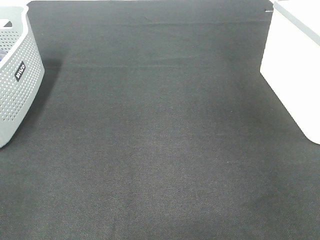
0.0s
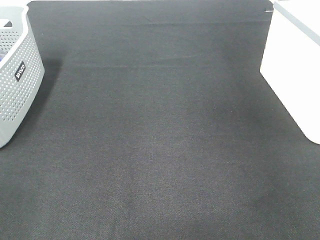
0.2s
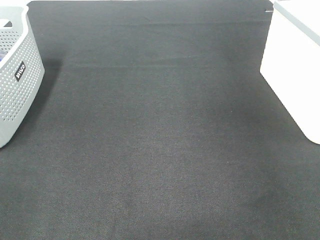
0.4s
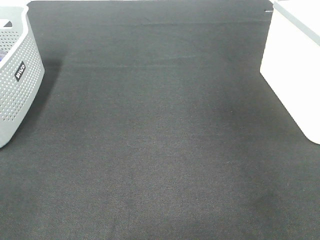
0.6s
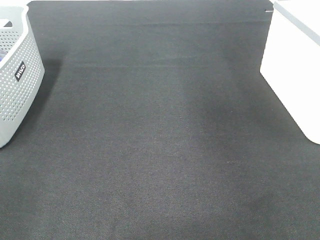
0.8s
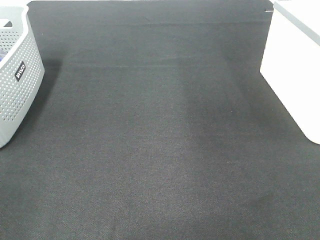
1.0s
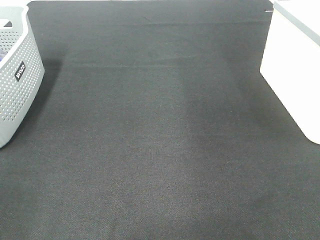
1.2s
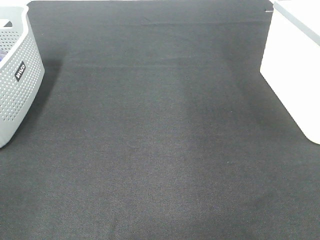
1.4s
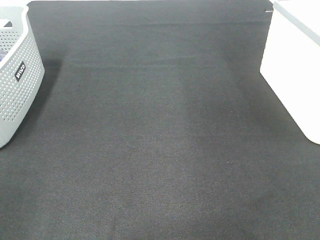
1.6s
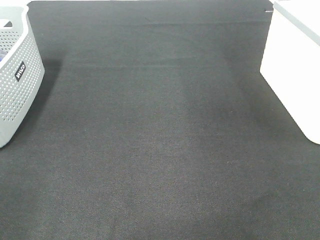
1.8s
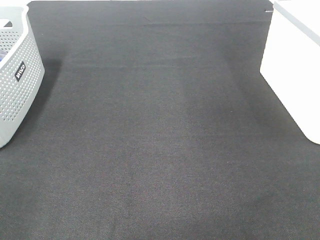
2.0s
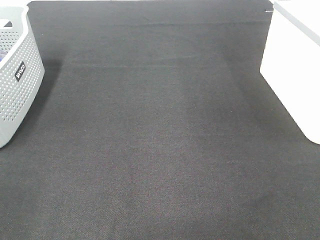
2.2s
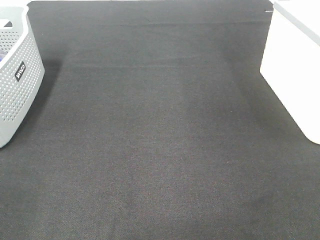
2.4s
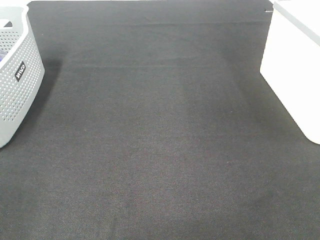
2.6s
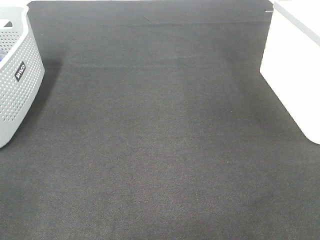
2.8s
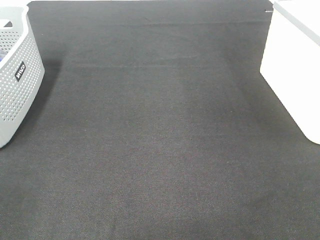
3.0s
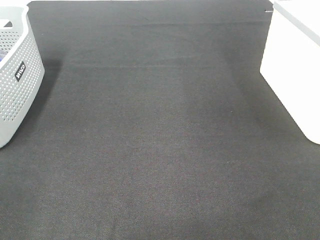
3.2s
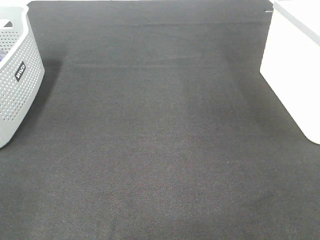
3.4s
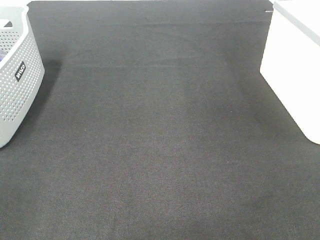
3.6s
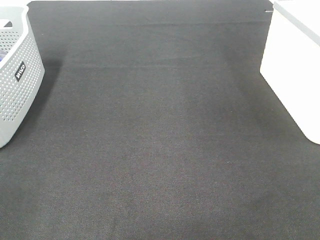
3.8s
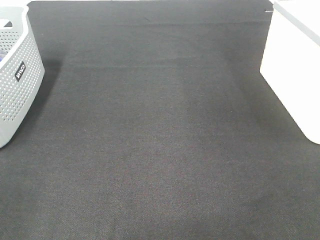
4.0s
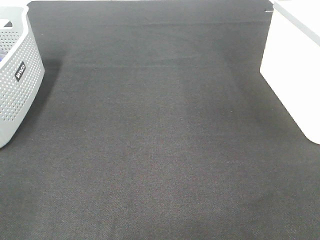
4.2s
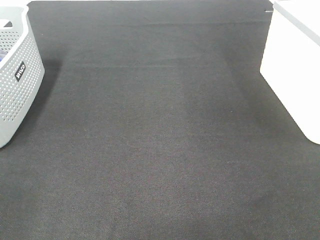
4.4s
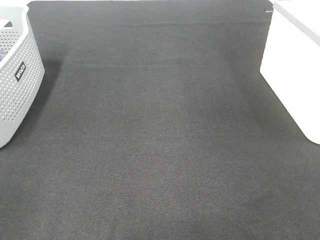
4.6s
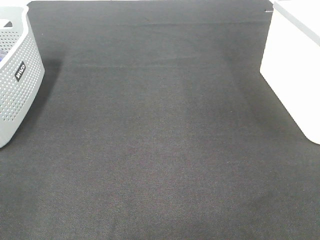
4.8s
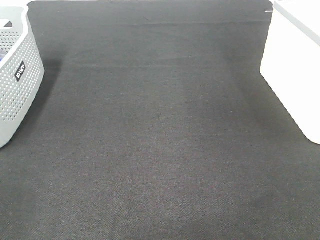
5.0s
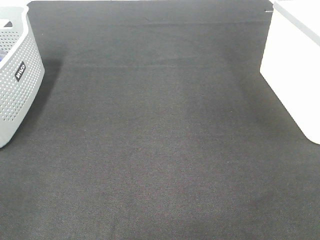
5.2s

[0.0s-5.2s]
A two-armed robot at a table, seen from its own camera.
3.4s to 5.2s: Neither gripper changes place.

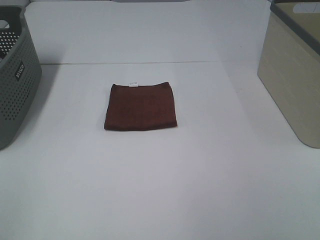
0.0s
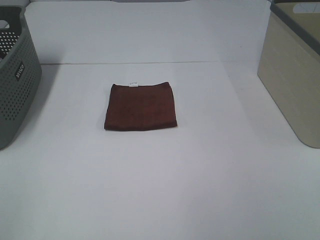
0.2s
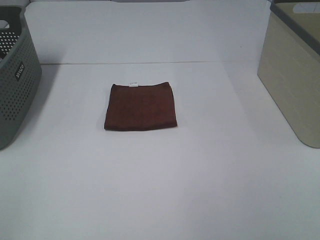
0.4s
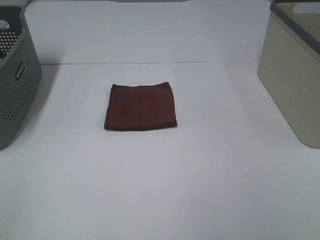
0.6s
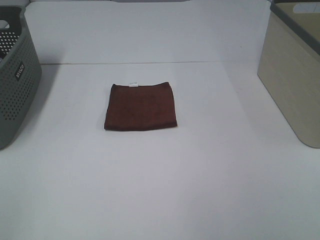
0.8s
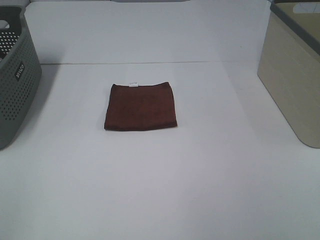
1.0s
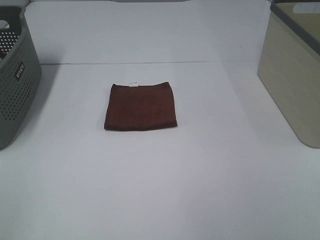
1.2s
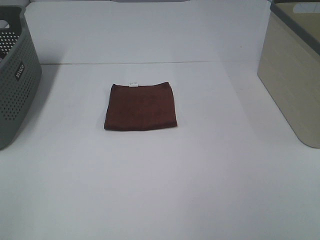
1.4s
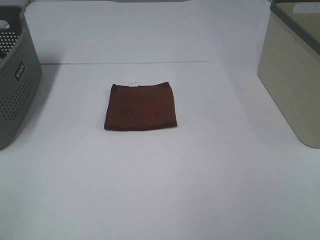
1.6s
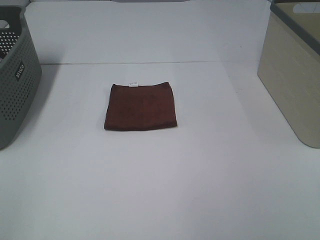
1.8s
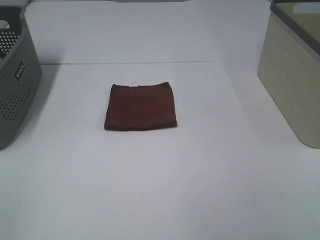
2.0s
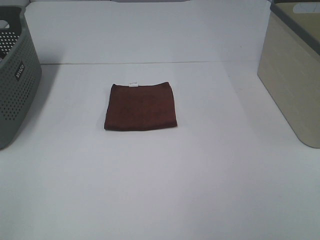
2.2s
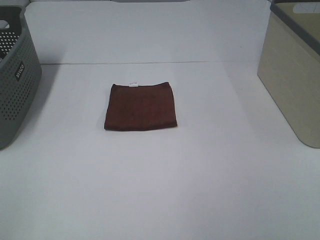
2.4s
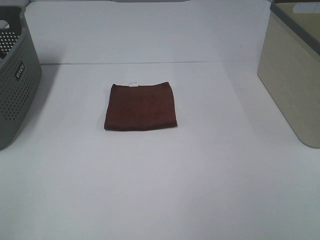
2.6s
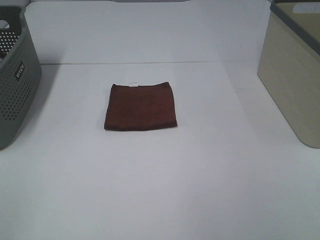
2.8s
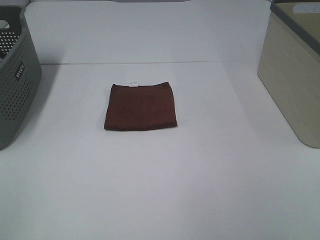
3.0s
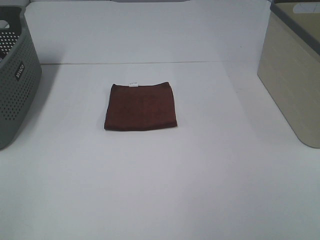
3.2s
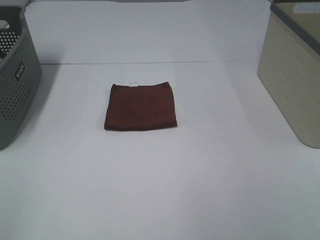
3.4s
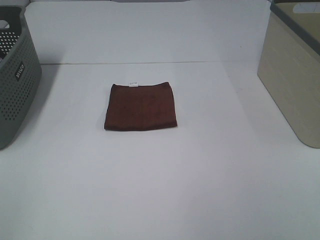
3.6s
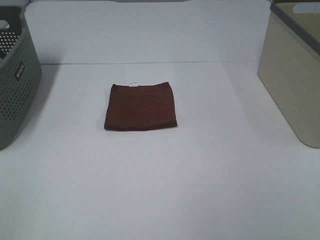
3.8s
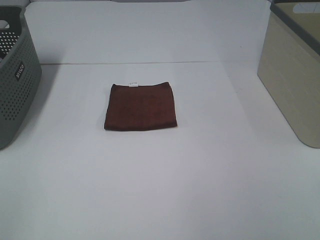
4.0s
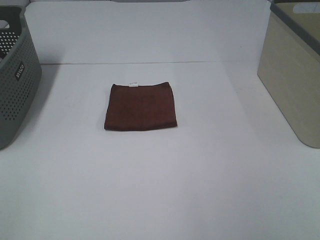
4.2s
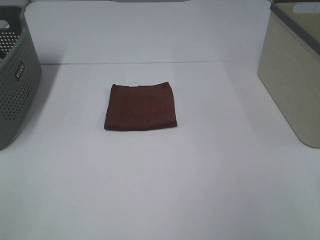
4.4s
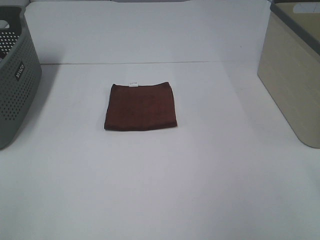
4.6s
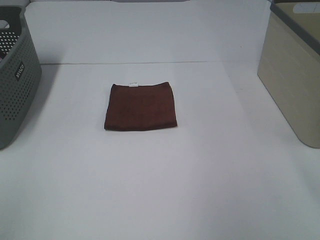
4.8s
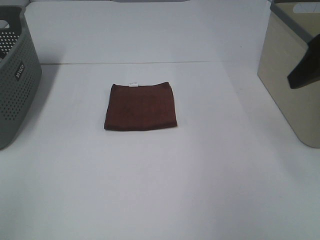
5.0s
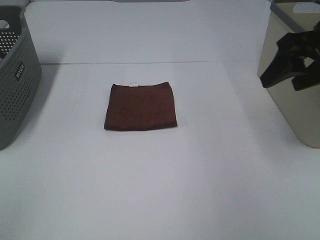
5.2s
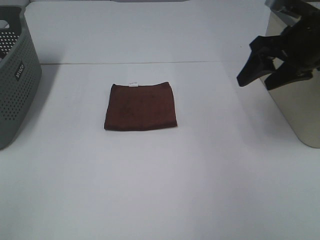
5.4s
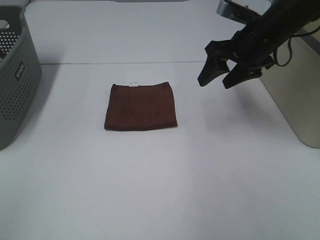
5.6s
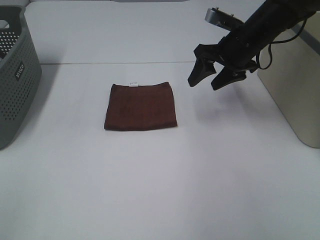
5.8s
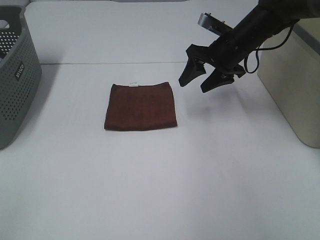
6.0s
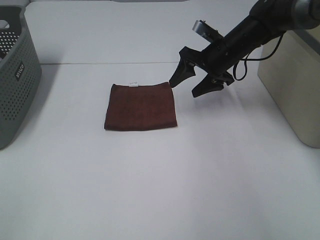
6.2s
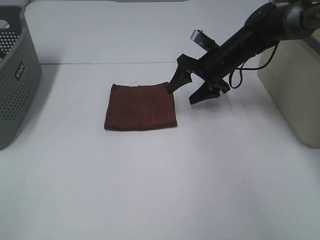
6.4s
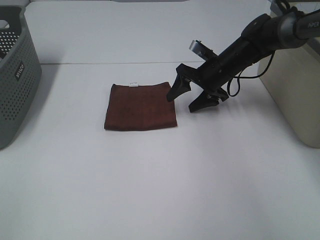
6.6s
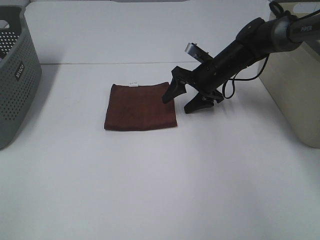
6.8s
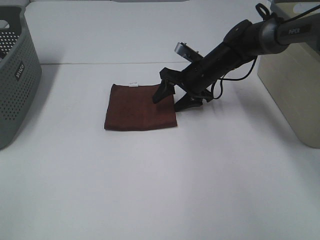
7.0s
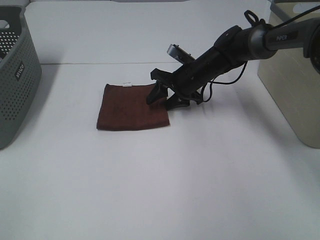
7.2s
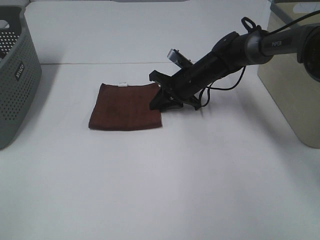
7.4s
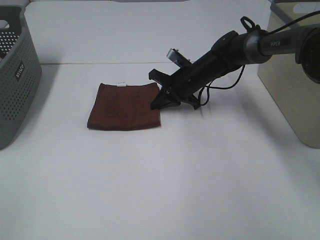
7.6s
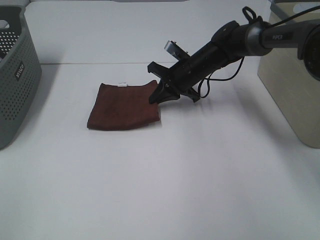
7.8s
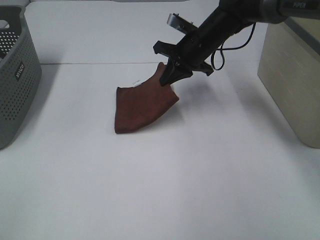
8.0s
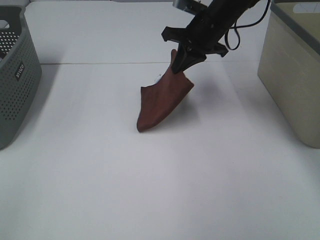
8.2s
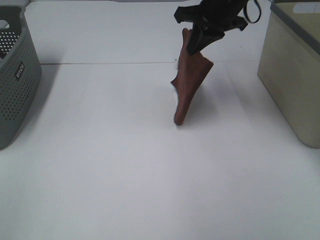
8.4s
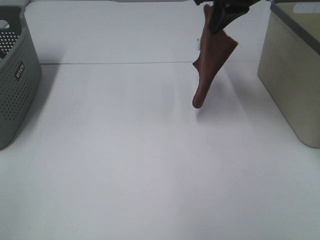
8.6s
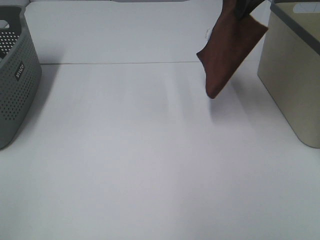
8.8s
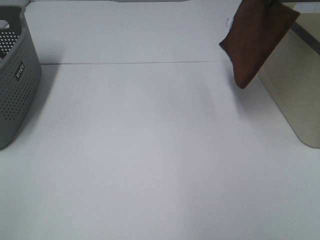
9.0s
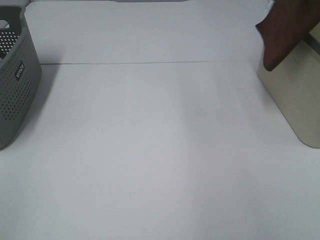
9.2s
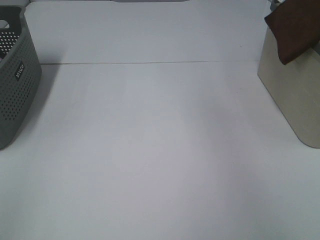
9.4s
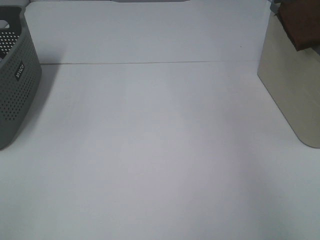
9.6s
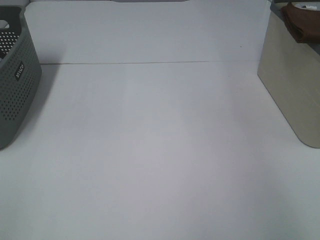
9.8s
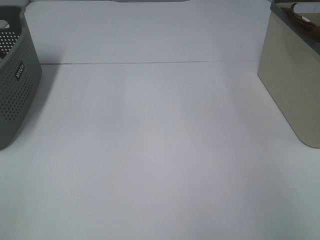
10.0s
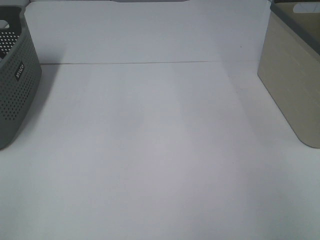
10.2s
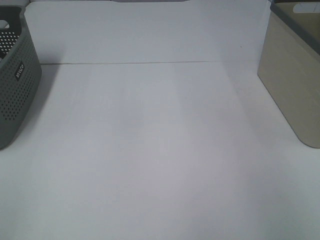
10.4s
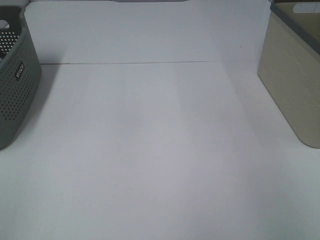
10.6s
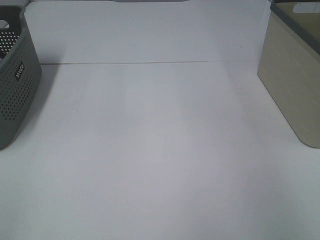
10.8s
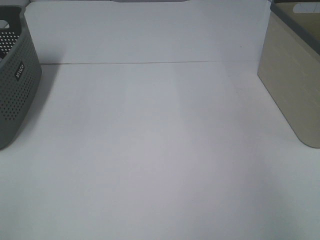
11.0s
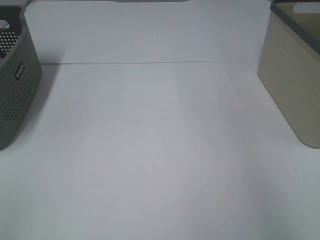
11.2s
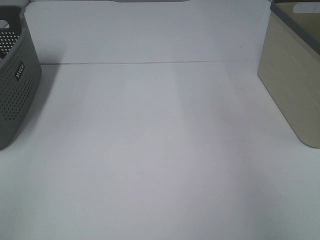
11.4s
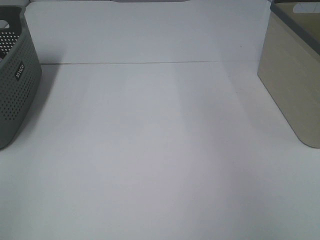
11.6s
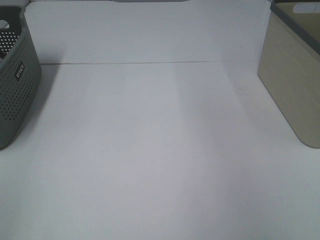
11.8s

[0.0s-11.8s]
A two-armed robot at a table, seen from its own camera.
Step, 0.0s to 7.4s: Right hand: grab the folded brown towel.
Step, 7.6s to 10.8s: Right hand: place the brown towel in right basket.
0.0s to 3.0s: The two grippers keep their place.
4.4s to 6.0s: The right gripper travels forward by some 35 cm.
6.0s to 7.4s: The right gripper shifts roughly 10 cm downward and to the left, and closes.
7.4s to 8.8s: The right gripper travels upward by some 30 cm.
8.8s to 10.4s: The right gripper shifts approximately 25 cm to the right, and opens its fingers.

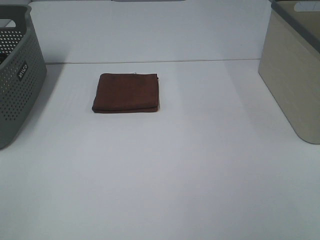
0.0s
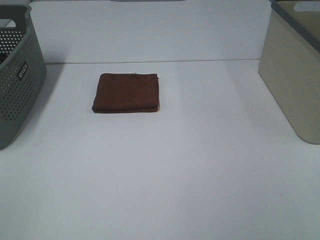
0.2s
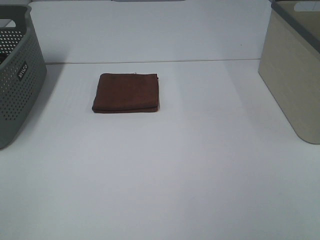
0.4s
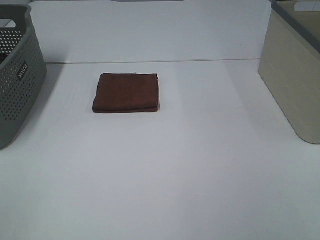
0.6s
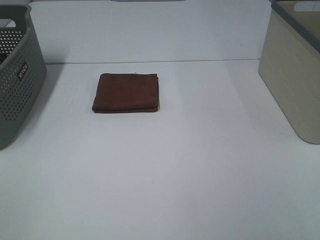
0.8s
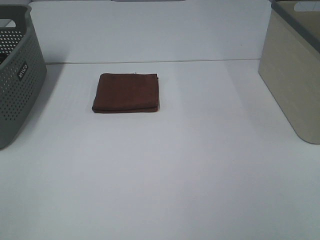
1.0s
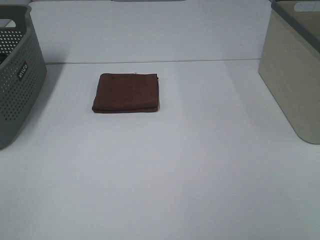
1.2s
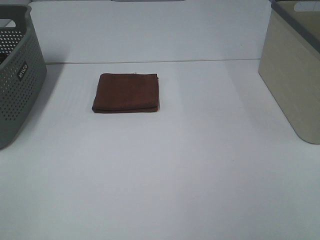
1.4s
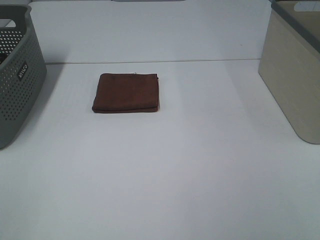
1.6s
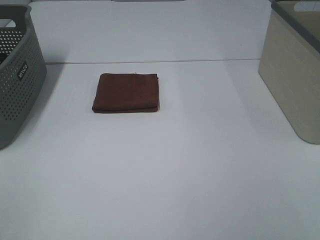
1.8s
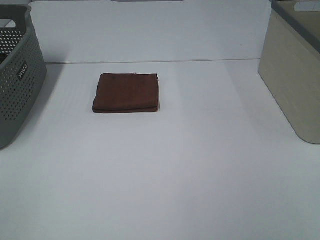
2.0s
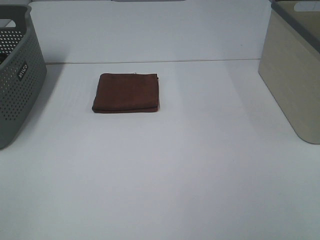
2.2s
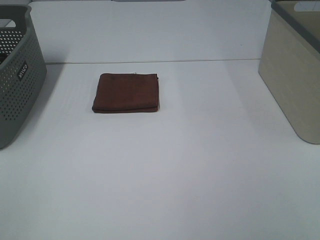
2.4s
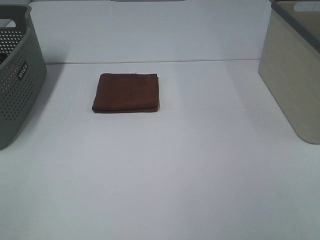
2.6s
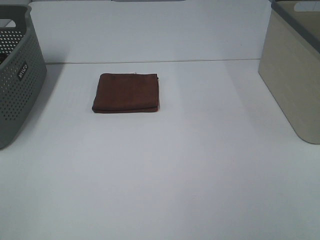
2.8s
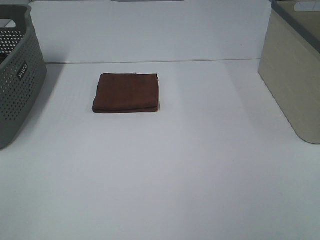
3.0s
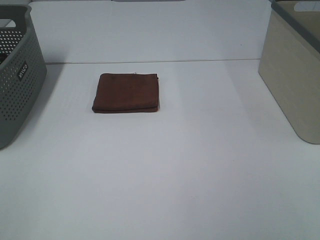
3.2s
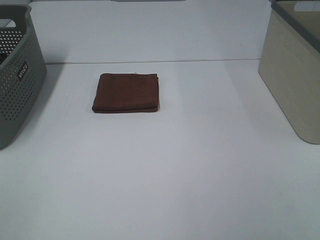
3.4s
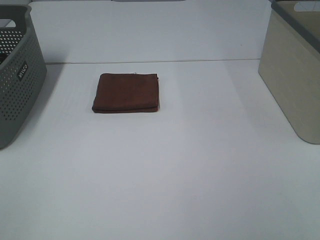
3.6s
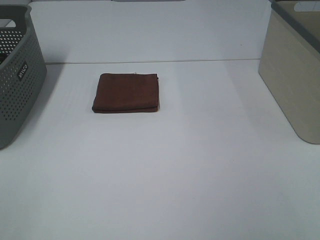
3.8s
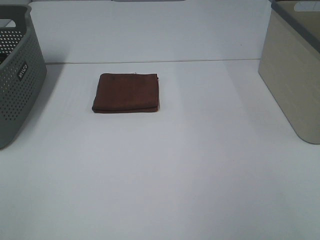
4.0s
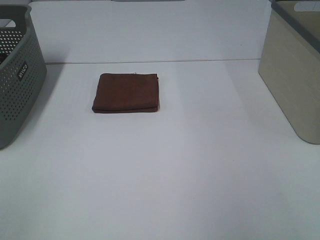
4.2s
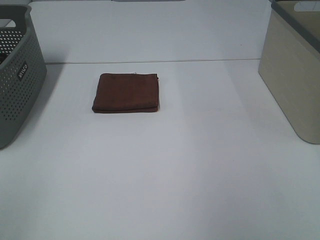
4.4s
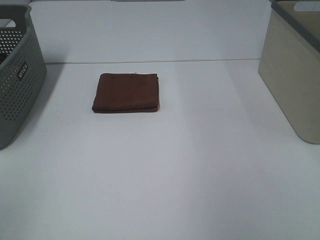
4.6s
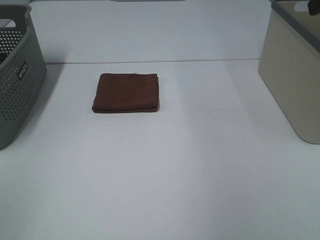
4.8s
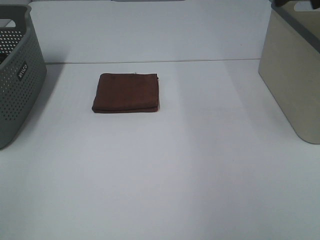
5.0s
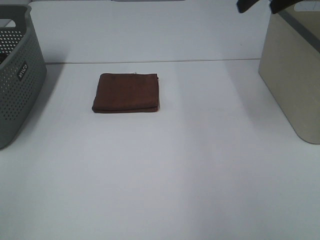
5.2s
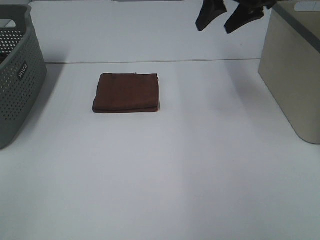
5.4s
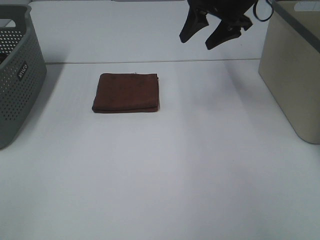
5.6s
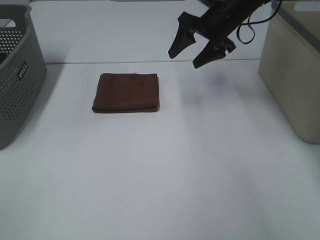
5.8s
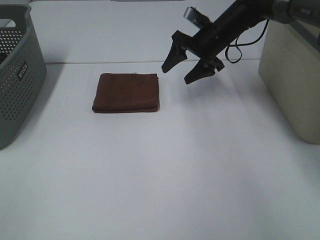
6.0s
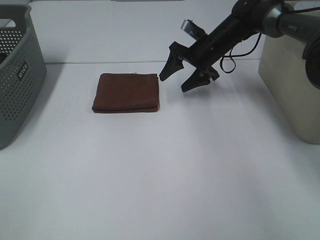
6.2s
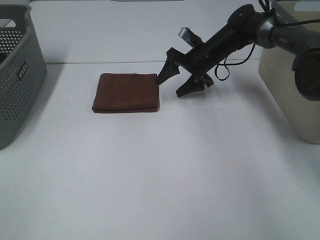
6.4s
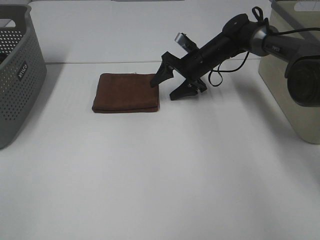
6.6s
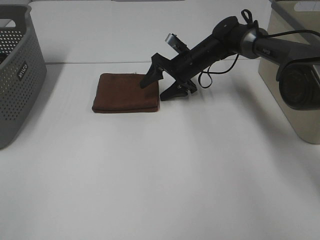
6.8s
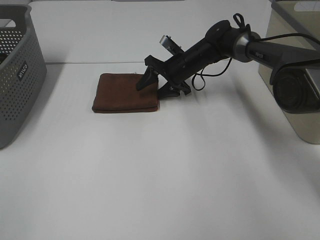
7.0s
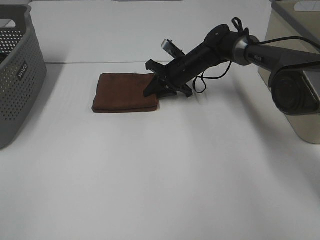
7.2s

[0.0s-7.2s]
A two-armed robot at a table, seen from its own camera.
0.0s to 2.8s: Both grippers stay about where they are.
4.4s to 5.8s: The right gripper moves forward, to the left and downward, some 40 cm.
5.8s to 7.2s: The right gripper goes some 15 cm downward and to the left, and closes its fingers.
